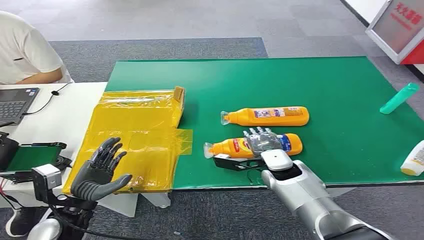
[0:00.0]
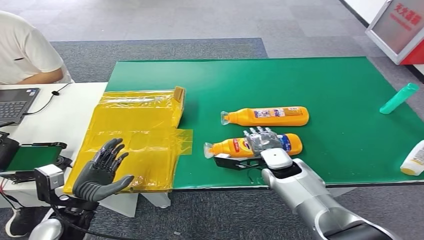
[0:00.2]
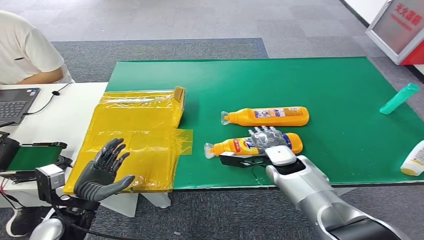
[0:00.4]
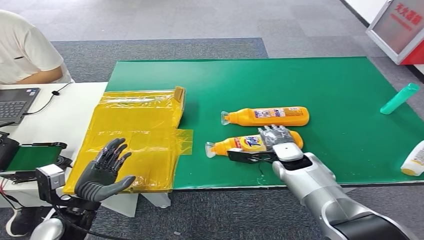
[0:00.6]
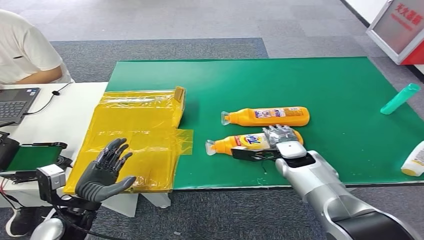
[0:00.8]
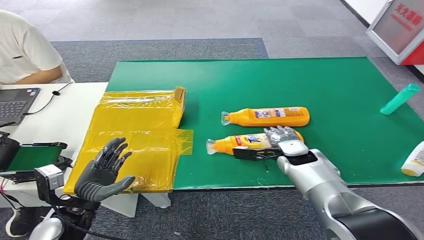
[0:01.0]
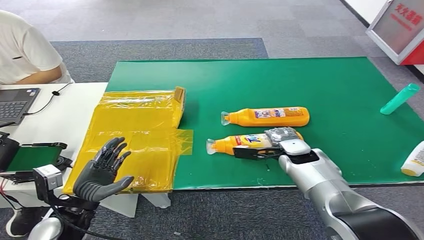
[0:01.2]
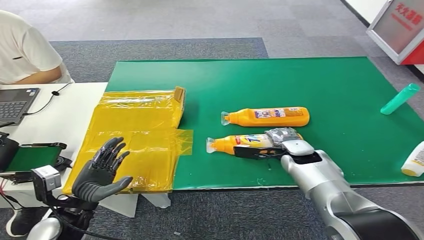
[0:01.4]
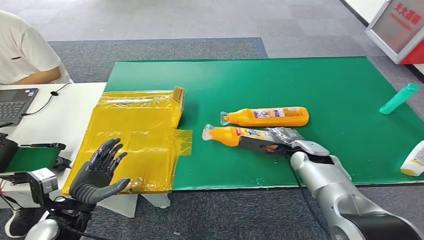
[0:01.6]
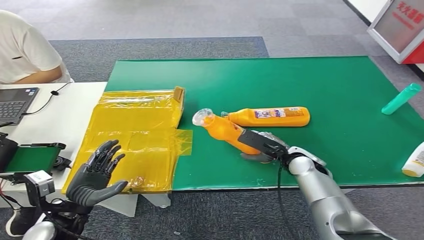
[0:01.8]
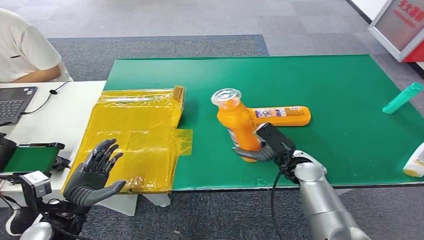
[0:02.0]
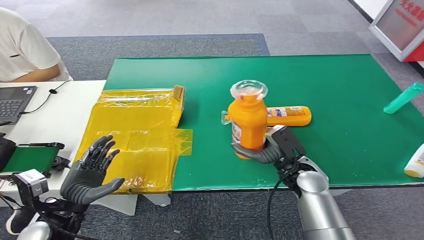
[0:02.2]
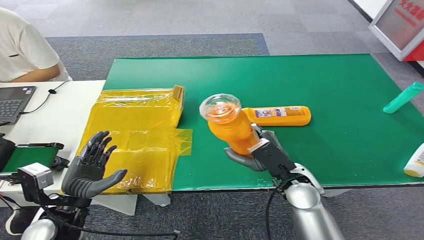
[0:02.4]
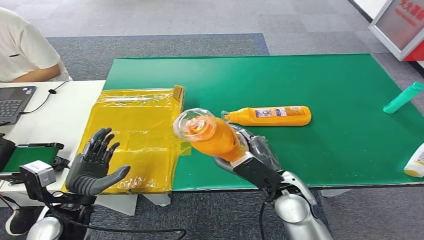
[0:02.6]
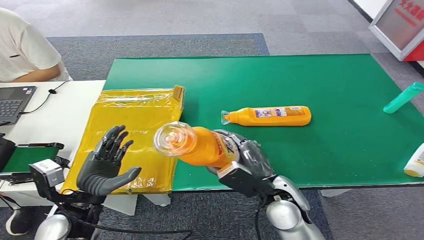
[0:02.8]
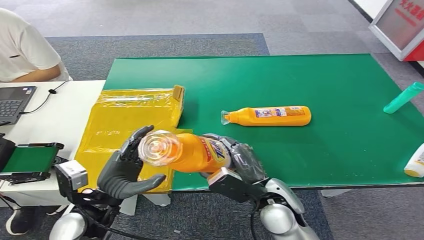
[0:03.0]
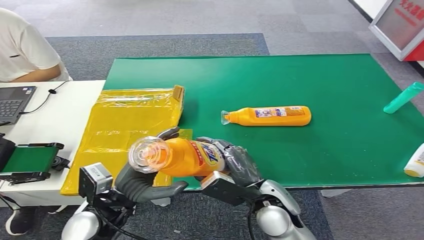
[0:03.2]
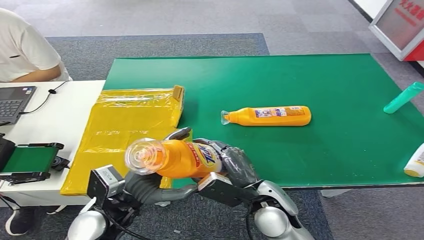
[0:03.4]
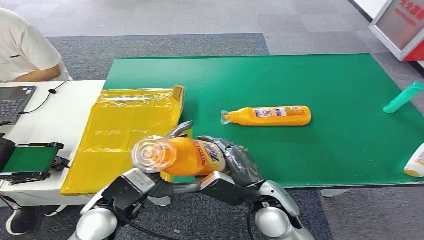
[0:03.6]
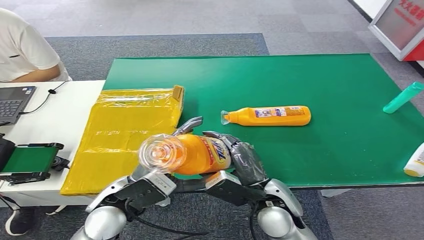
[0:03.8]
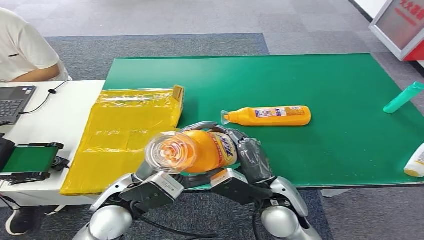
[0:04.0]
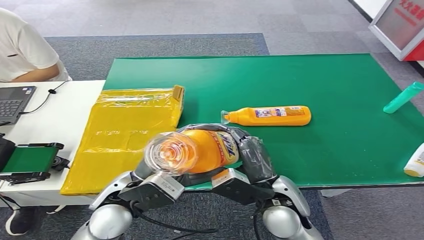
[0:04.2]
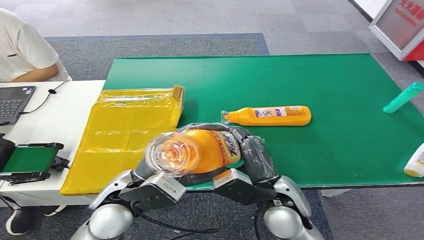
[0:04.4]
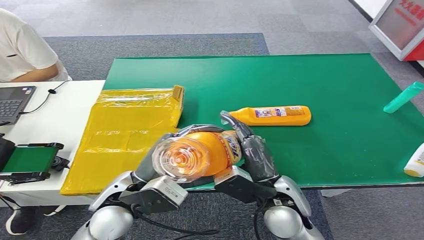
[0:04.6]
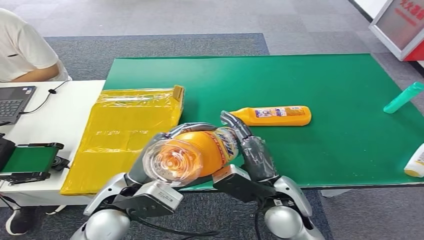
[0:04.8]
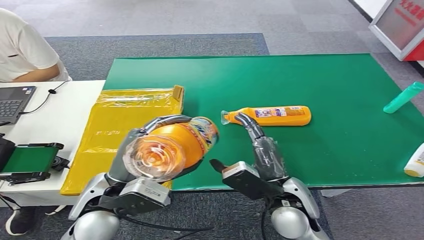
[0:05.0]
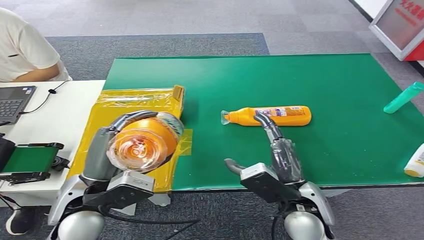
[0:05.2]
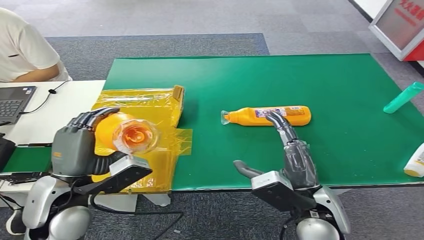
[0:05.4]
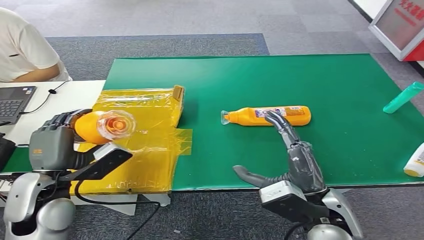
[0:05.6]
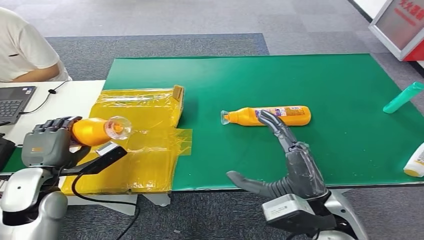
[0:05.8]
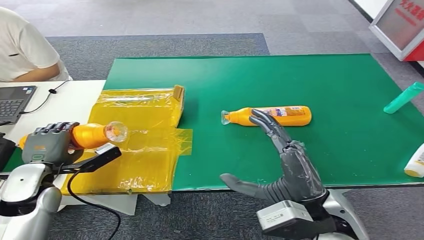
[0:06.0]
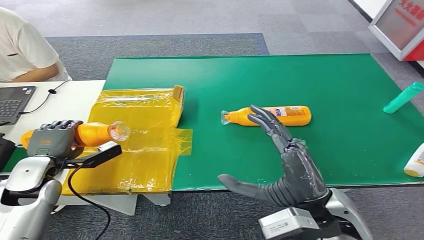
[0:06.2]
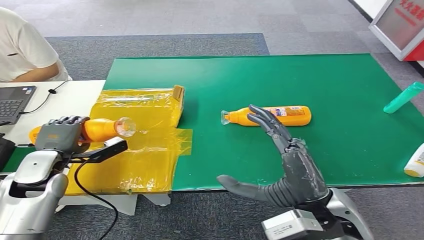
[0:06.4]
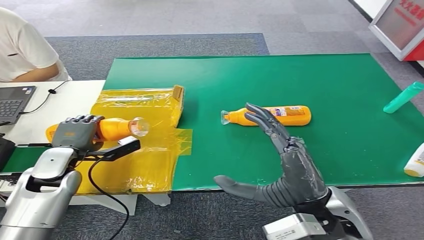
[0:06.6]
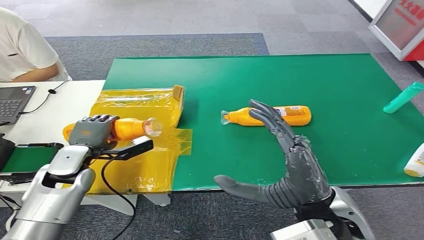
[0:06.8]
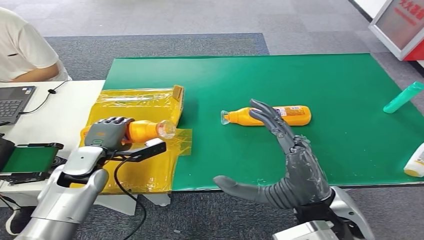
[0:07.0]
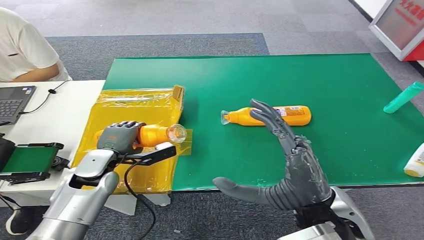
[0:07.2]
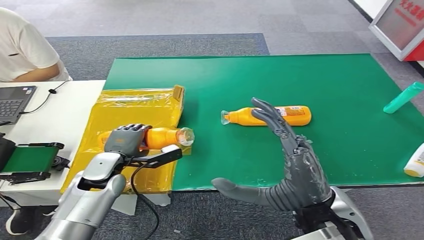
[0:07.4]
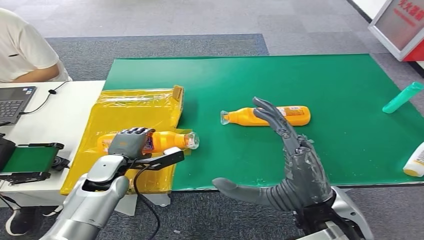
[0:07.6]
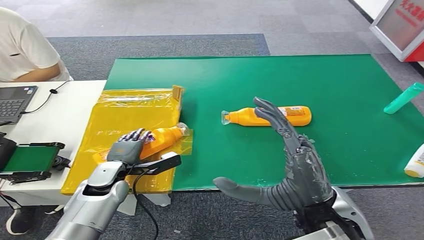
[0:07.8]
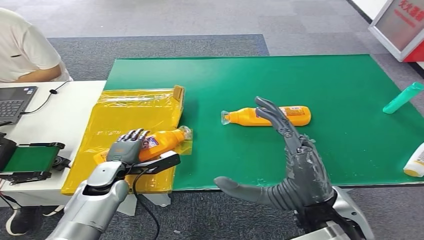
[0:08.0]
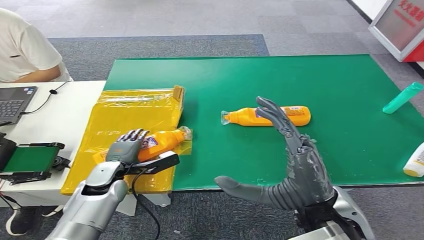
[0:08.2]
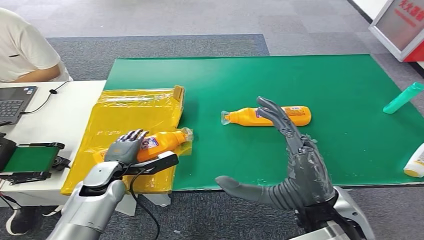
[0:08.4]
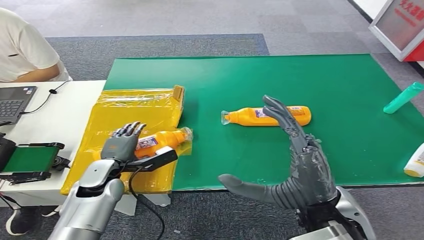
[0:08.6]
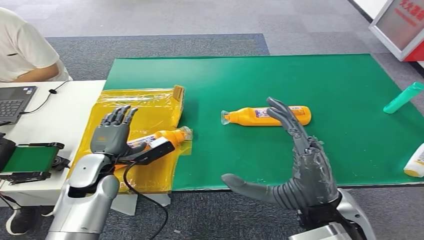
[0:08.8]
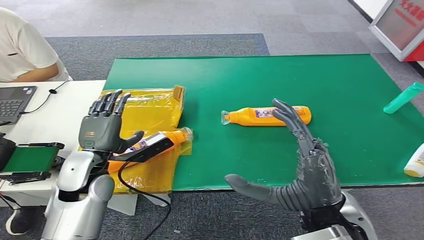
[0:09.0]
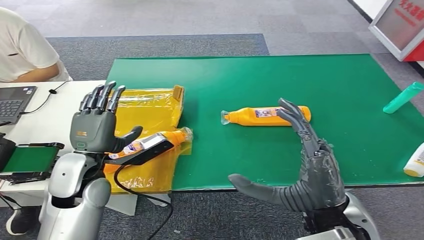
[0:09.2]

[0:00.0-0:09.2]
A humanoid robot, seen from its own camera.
Step, 0:00.0 to 0:02.4: Pick up the bottle from the table.
Step, 0:04.0 to 0:09.2: Turn the bottle to the front side.
0:03.0 to 0:04.6: The left hand shifts roughly 10 cm to the right and upward.
0:06.2 to 0:07.6: The left hand moves to the right and downward, about 15 cm.
0:07.6 to 0:09.2: The left hand shifts some 10 cm upward.
